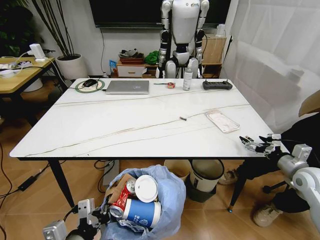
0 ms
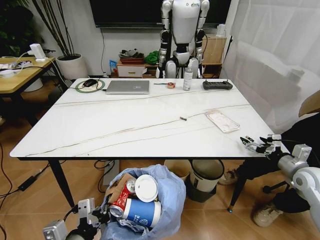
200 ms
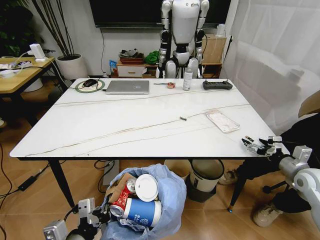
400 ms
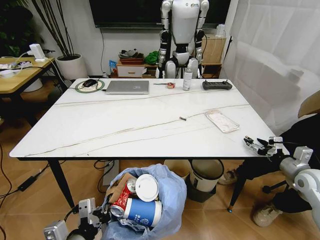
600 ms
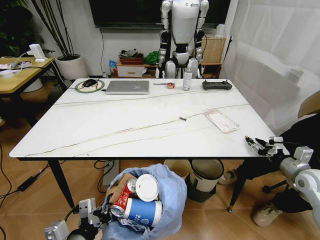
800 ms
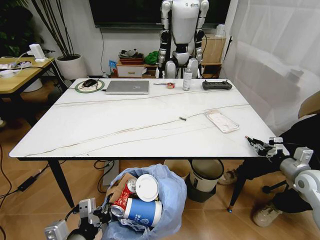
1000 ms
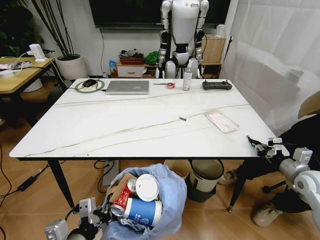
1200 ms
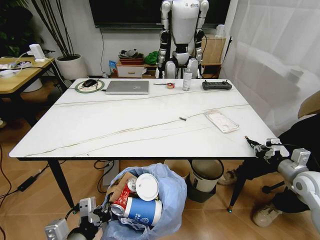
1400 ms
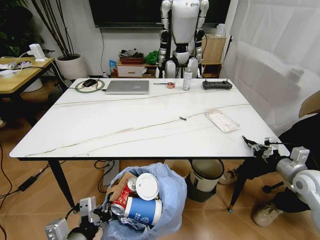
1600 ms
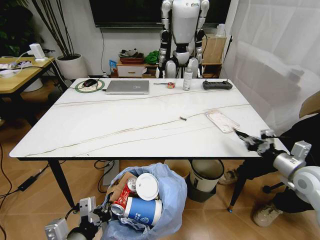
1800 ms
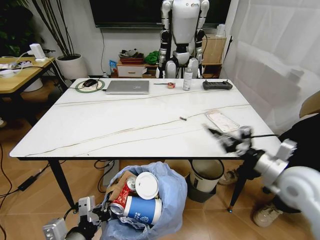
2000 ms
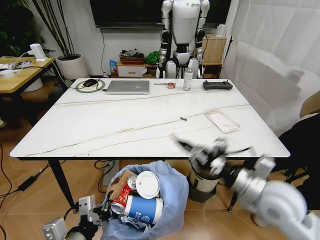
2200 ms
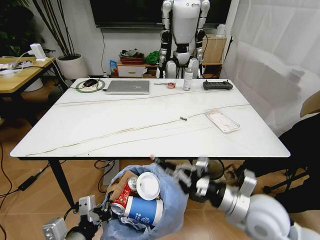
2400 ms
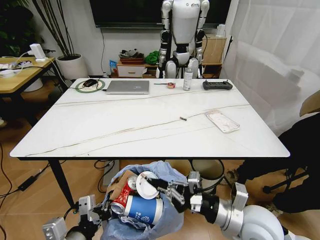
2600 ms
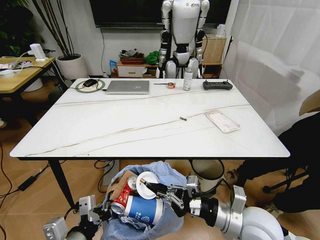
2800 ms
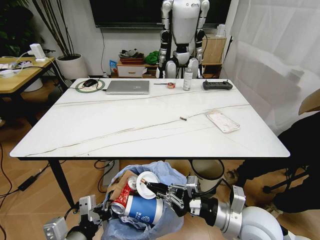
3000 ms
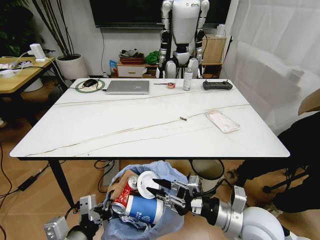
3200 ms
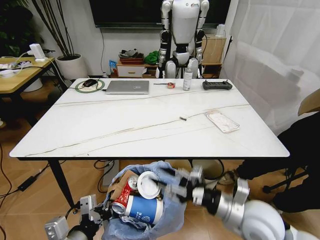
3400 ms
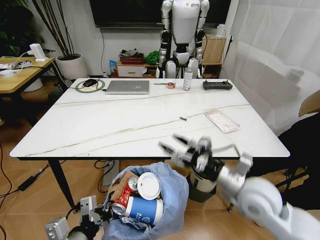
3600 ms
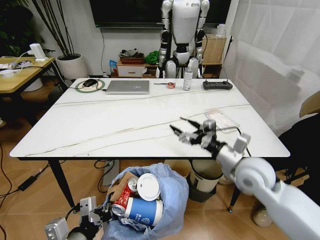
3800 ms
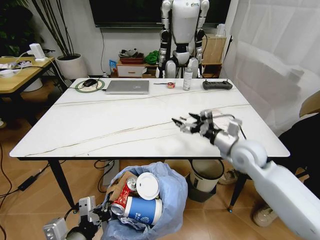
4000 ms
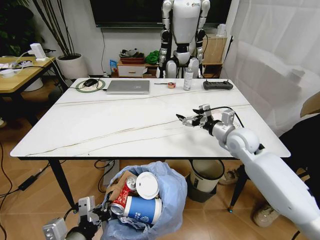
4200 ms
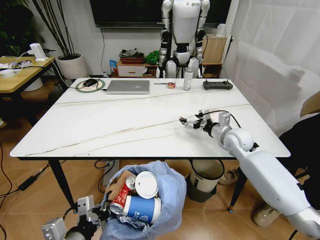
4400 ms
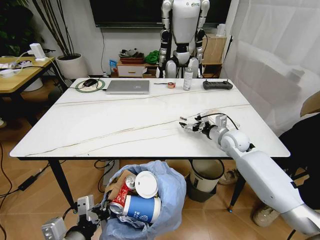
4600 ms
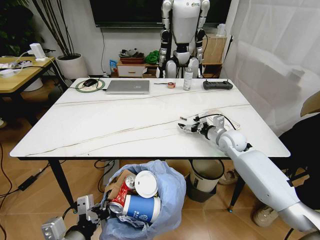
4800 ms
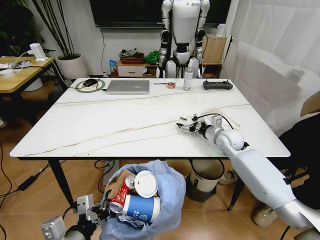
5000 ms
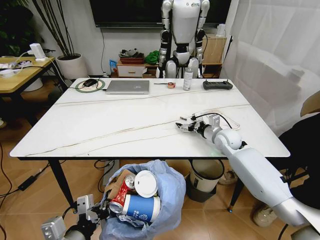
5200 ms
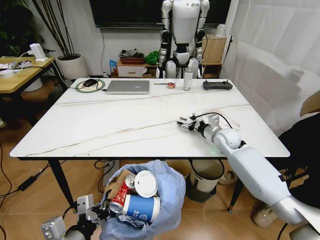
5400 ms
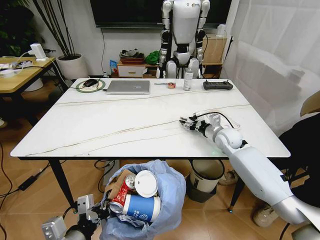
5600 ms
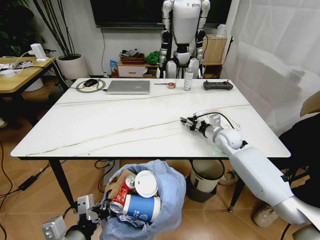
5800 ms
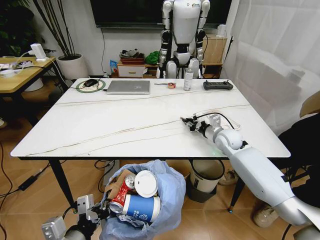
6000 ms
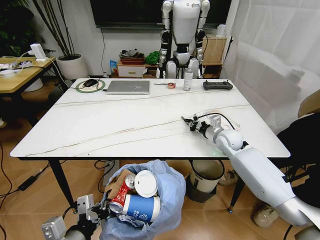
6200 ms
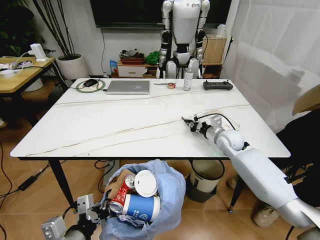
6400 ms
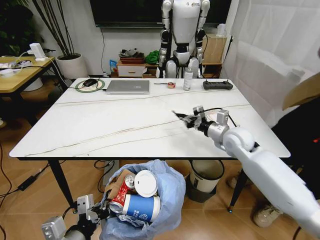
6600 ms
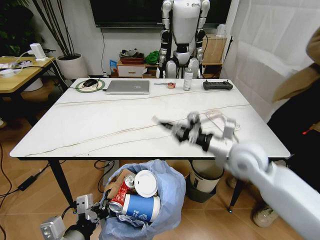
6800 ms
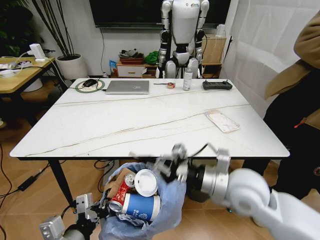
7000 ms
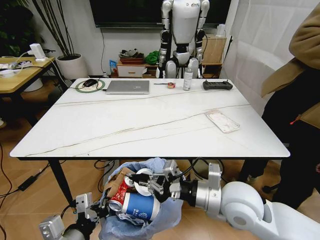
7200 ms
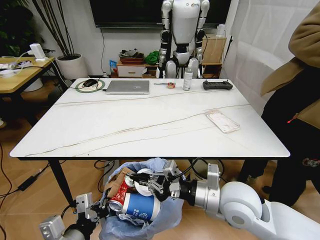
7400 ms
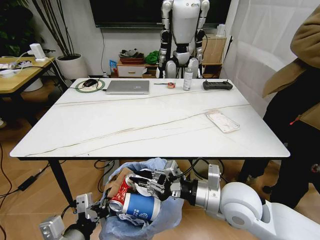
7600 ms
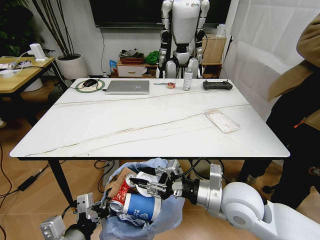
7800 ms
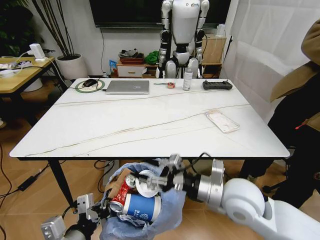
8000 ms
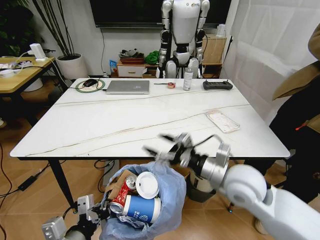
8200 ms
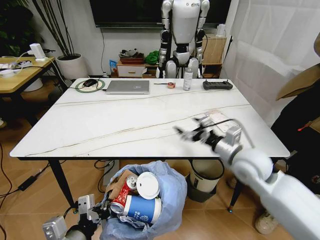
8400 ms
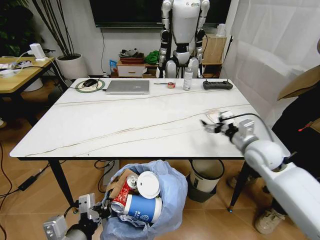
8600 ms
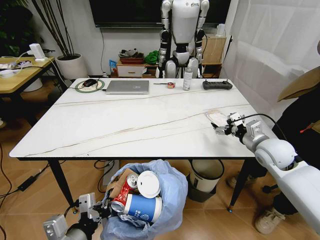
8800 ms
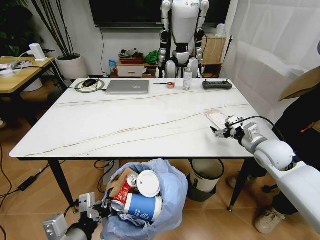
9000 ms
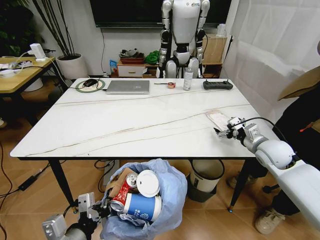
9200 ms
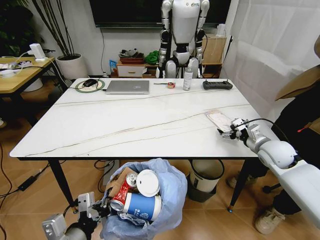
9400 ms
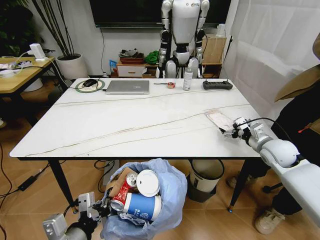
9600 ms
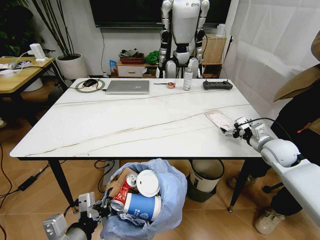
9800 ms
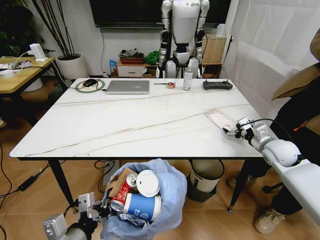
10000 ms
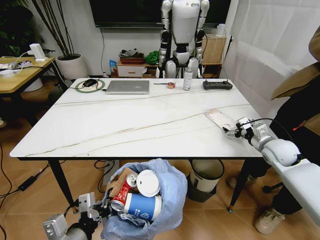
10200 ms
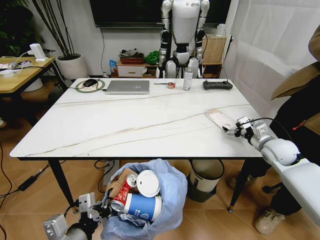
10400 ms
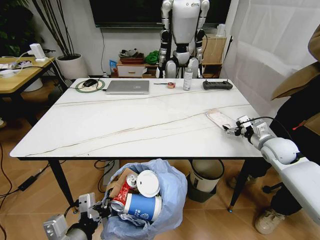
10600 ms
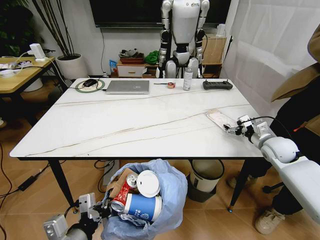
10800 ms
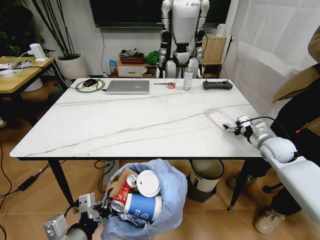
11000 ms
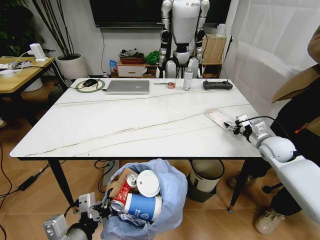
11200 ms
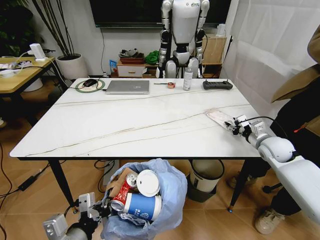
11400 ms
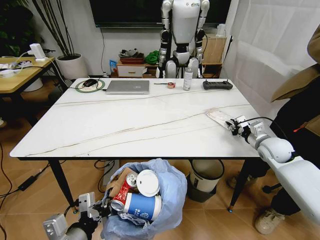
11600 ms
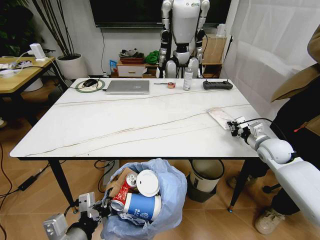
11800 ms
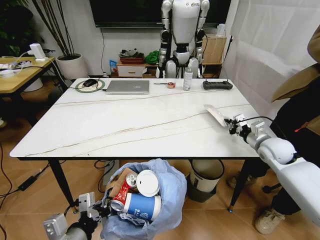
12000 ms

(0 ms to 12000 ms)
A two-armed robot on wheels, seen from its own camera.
Task of the whole recording: Pick up the trash bin and place the trash from the table into it.
0 ms - 1600 ms: The right gripper closes up.
1600 ms - 3000 ms: The right gripper moves to the left and backward, roughly 25 cm.
3000 ms - 4400 ms: The right gripper is displaced forward by roughly 30 cm, and opens up.
4400 ms - 6000 ms: The right gripper closes.
6000 ms - 7600 ms: The right gripper is displaced backward by approximately 25 cm.
7600 ms - 9000 ms: The right gripper travels to the right and forward by some 25 cm, and opens its fingers.
9000 ms - 10400 ms: The right gripper goes approximately 5 cm to the right.
10400 ms - 12000 ms: The right gripper closes its fingers.

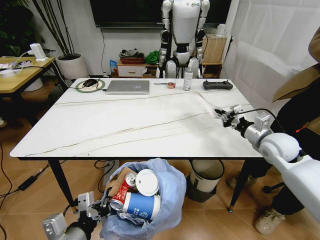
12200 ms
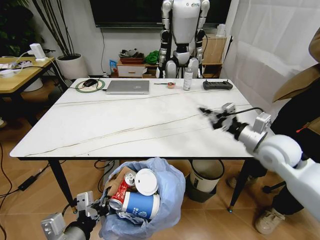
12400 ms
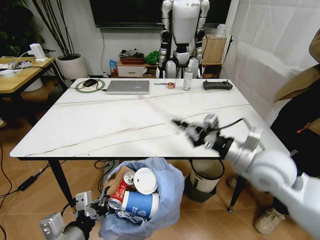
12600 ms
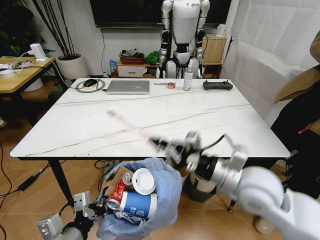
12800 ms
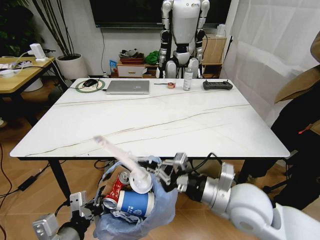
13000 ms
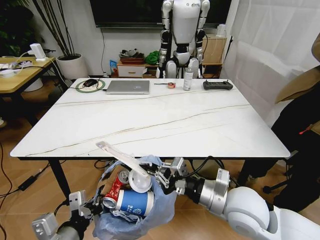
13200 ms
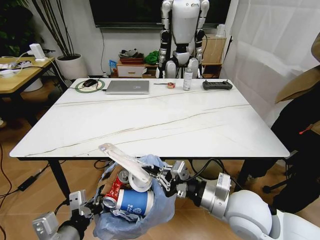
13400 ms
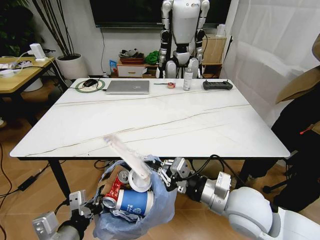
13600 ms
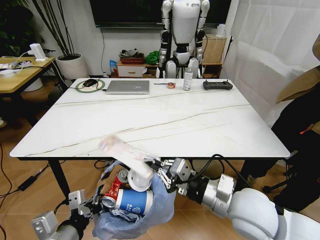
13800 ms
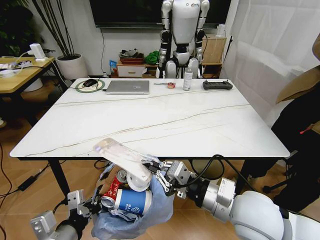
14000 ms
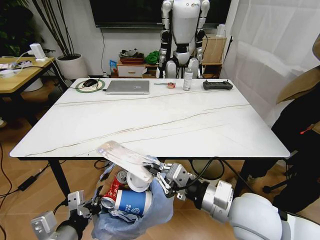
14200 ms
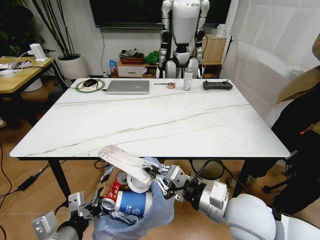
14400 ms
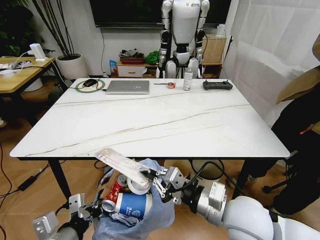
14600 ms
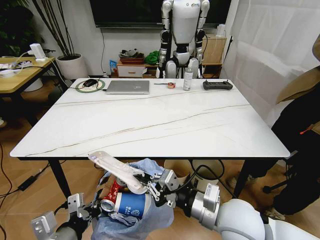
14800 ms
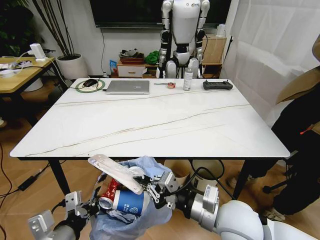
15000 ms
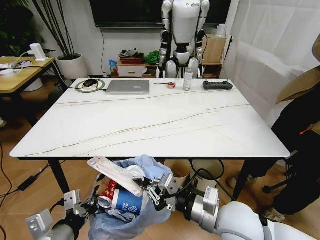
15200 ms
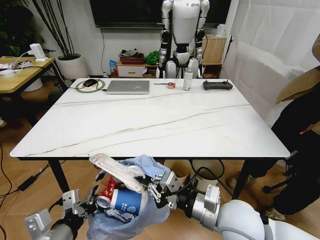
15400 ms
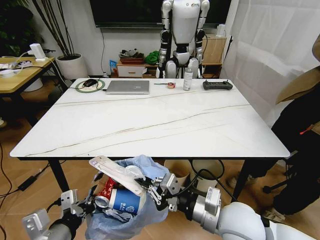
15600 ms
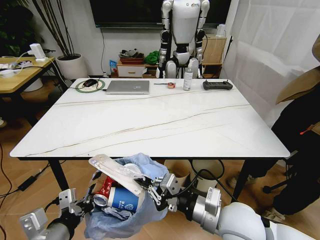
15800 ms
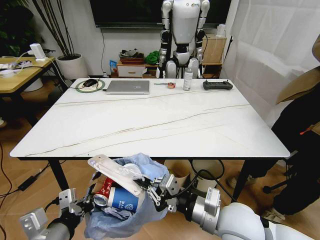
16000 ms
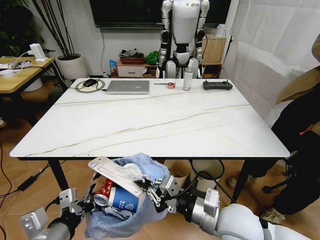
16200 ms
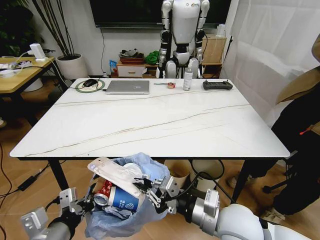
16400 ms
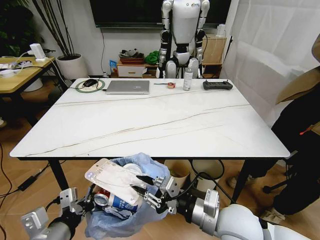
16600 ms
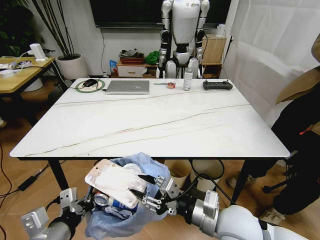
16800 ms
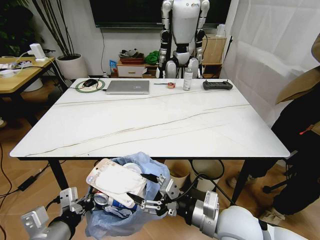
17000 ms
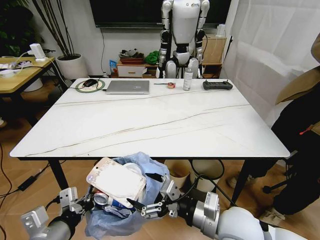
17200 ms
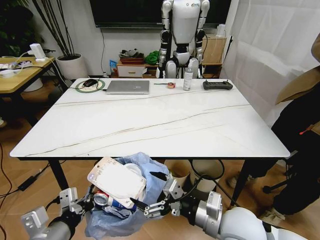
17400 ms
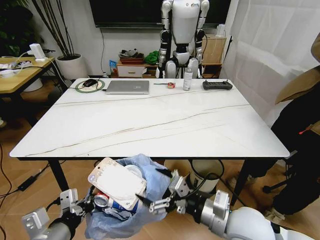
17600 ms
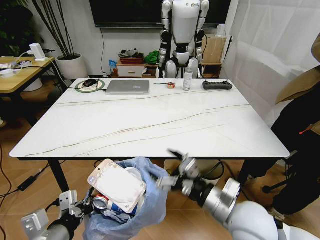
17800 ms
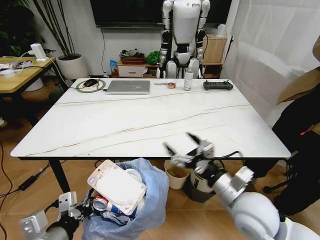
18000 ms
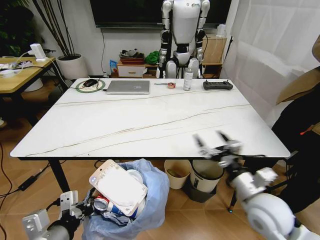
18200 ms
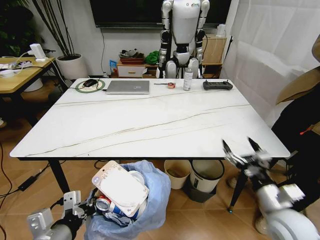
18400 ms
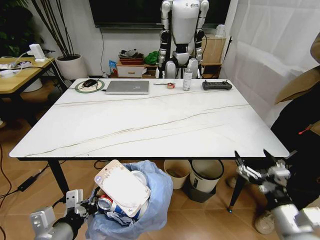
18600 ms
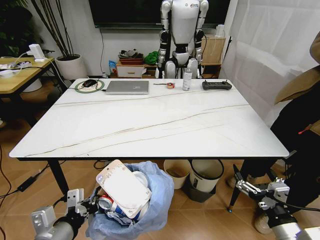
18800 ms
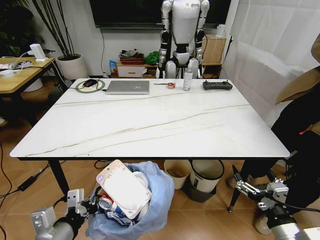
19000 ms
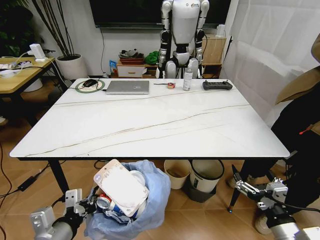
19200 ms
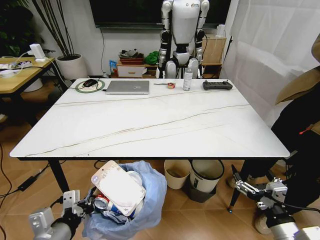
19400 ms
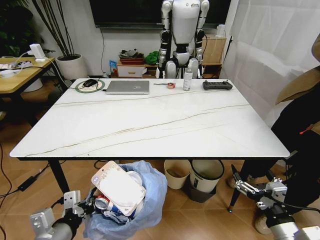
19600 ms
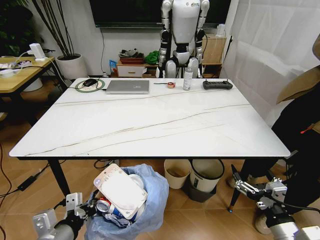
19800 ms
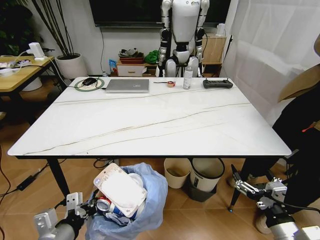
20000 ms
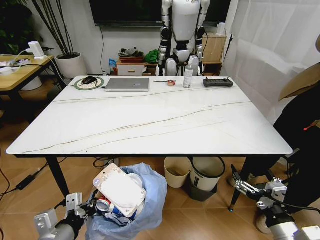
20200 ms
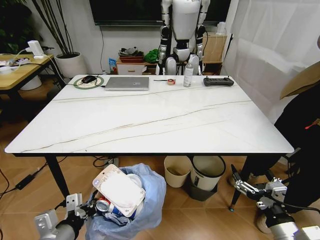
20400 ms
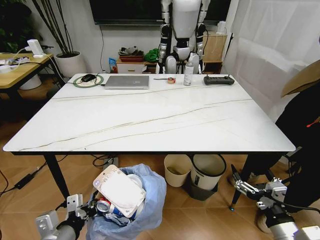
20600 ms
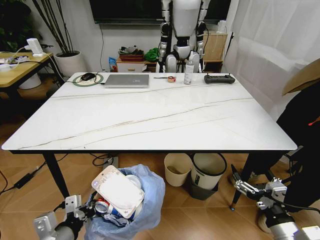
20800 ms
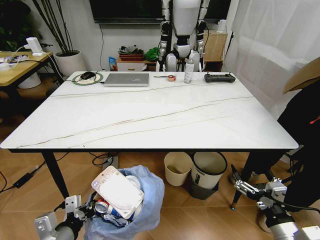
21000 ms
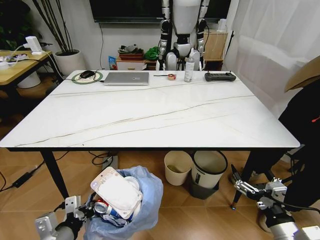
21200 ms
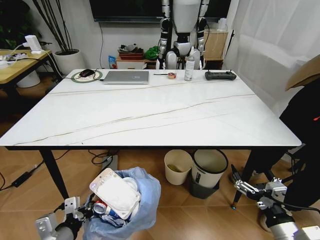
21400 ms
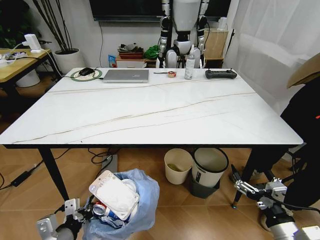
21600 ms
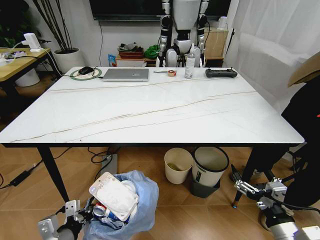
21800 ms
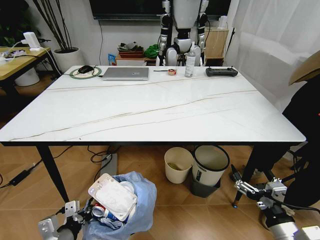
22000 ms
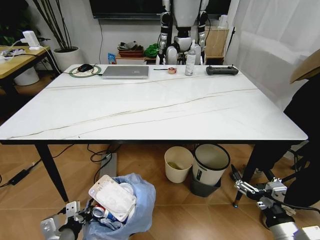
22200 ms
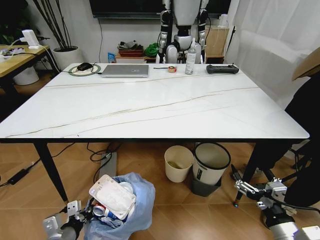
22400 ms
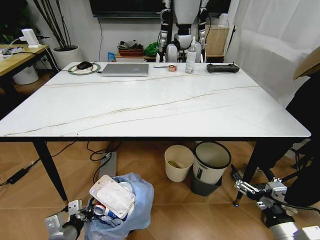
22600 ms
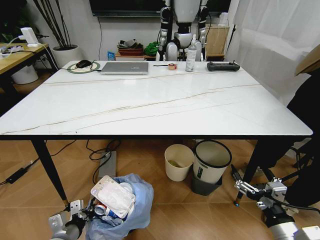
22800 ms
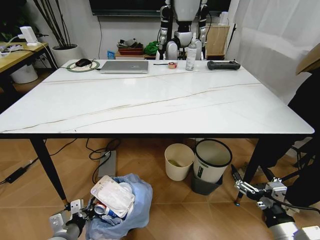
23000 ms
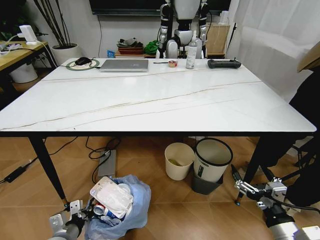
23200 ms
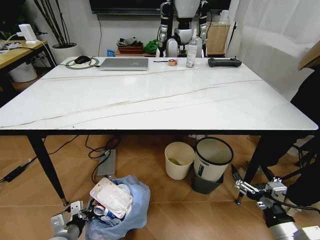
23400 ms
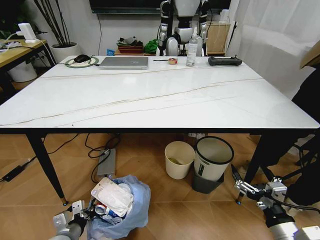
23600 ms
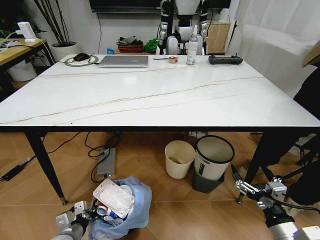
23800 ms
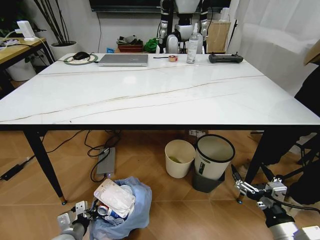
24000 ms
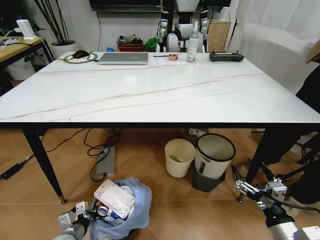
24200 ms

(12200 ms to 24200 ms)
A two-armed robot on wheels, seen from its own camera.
Task of the whole recording: Pick up the trash bin and place the trash from the table into it.
12200 ms - 13800 ms: The right gripper goes some 25 cm backward and to the left.
13800 ms - 15200 ms: The grippers move only a little.
15200 ms - 16600 ms: Neither gripper changes place.
16600 ms - 18200 ms: The right gripper is displaced to the right by about 10 cm, and opens up.
18200 ms - 19800 ms: The right gripper moves backward and to the right, some 15 cm.
21200 ms - 22600 ms: The left gripper travels downward by roughly 10 cm.
22600 ms - 24200 ms: The left gripper travels downward by approximately 5 cm.
